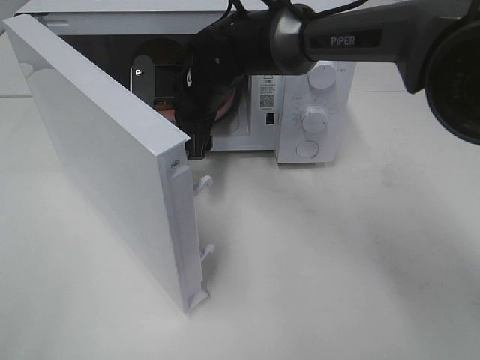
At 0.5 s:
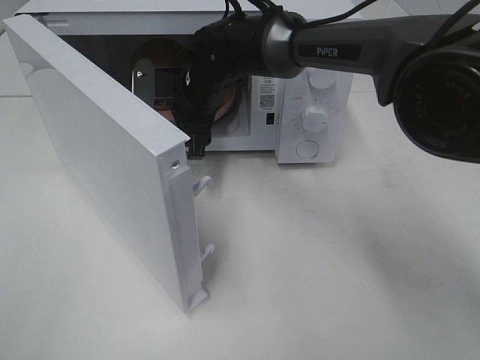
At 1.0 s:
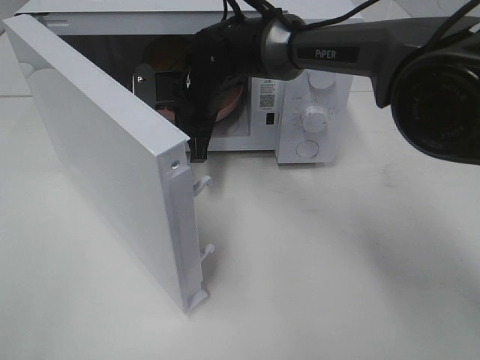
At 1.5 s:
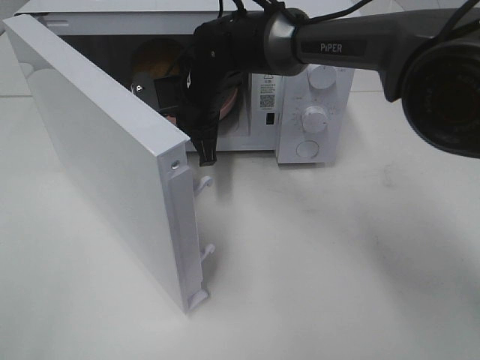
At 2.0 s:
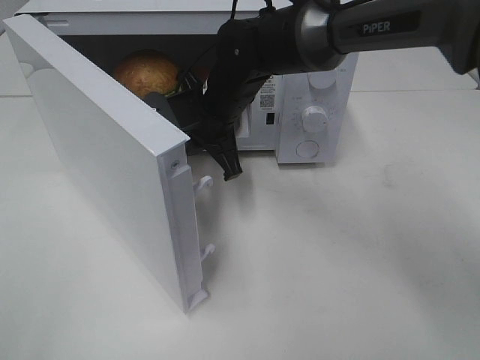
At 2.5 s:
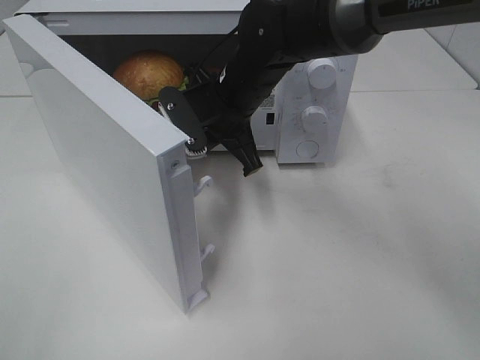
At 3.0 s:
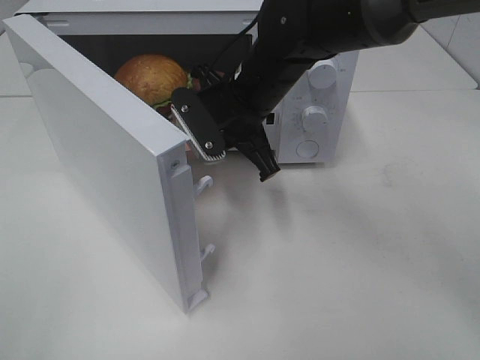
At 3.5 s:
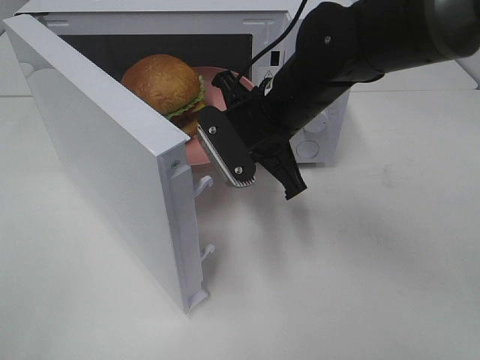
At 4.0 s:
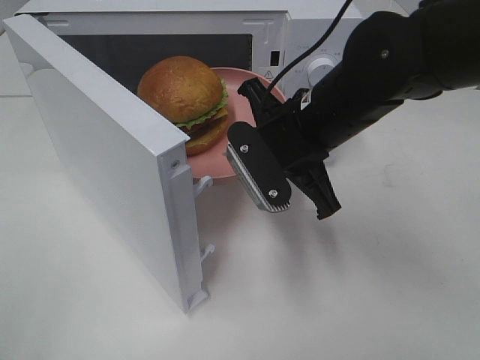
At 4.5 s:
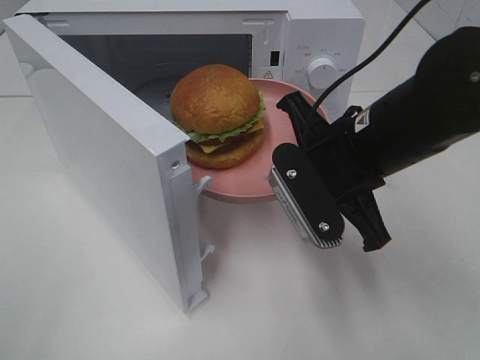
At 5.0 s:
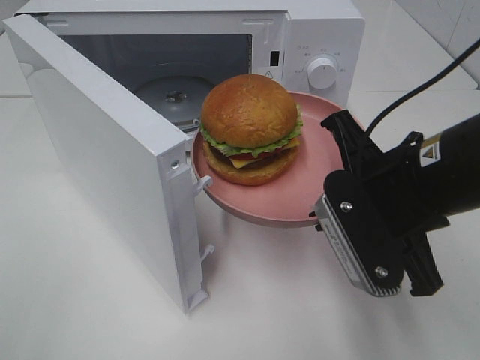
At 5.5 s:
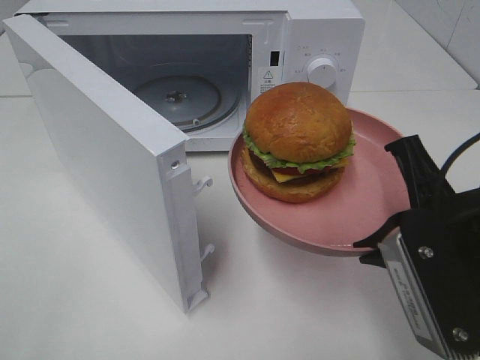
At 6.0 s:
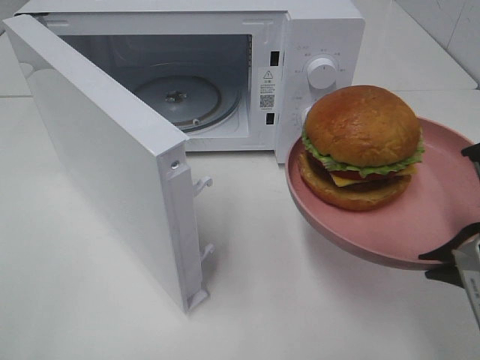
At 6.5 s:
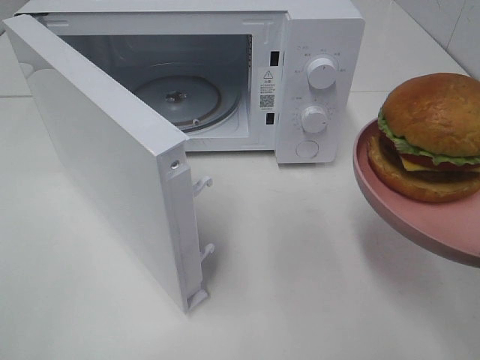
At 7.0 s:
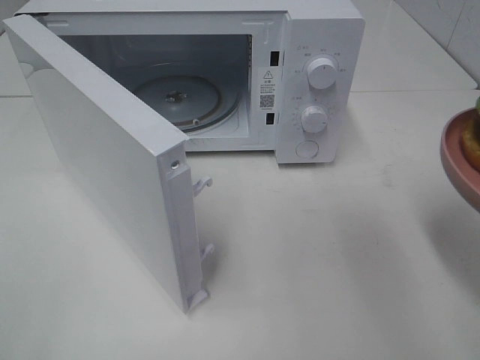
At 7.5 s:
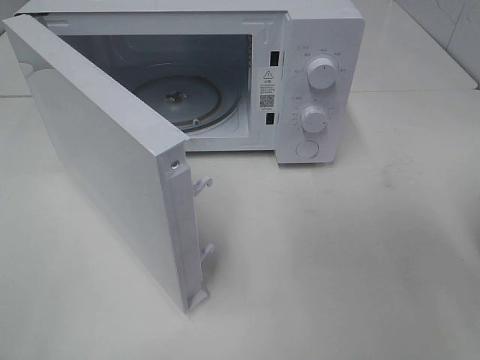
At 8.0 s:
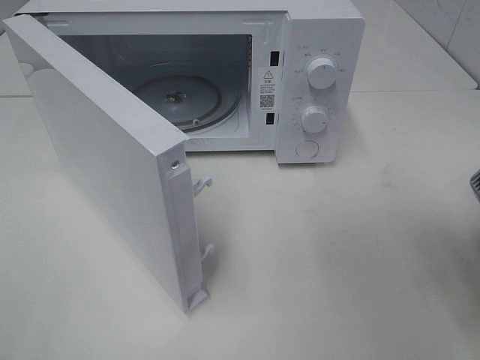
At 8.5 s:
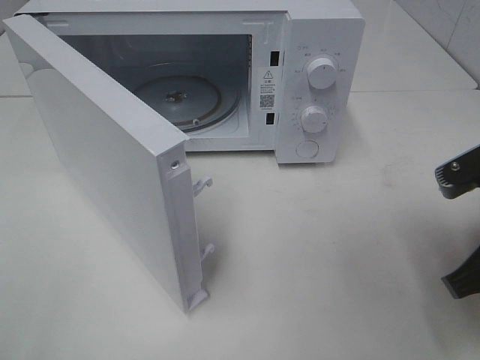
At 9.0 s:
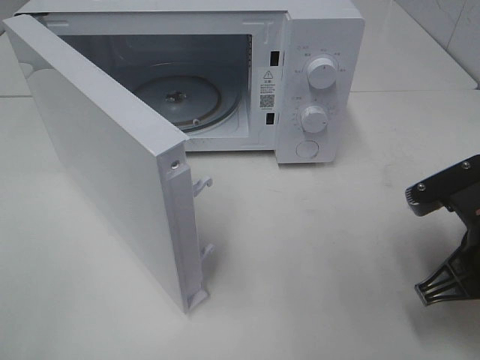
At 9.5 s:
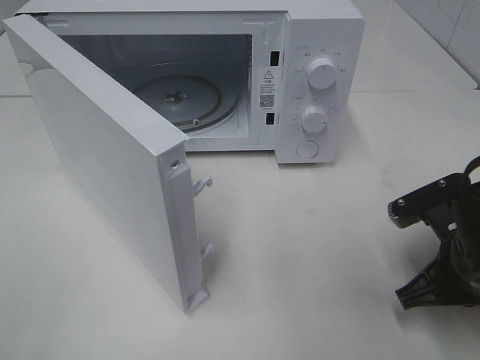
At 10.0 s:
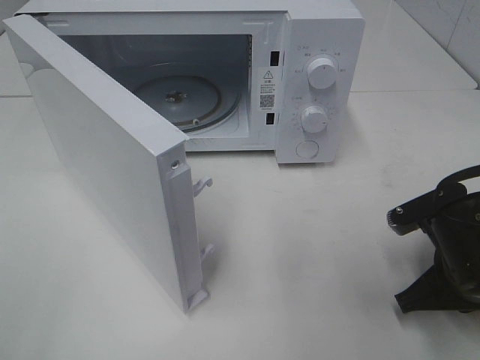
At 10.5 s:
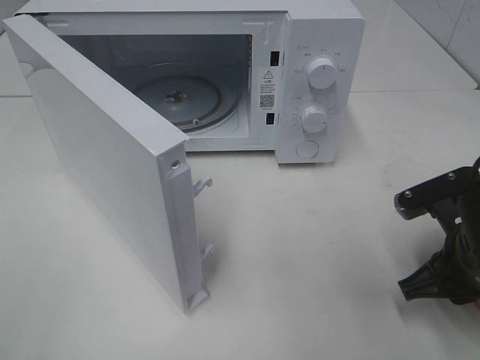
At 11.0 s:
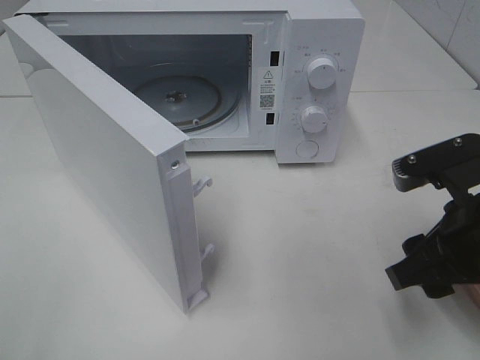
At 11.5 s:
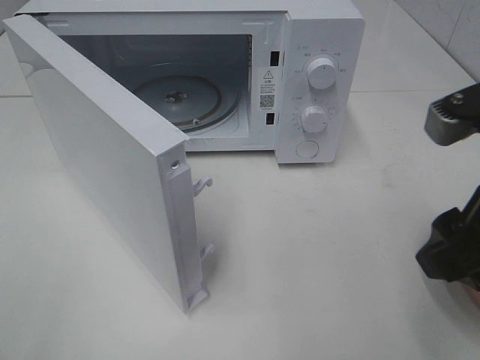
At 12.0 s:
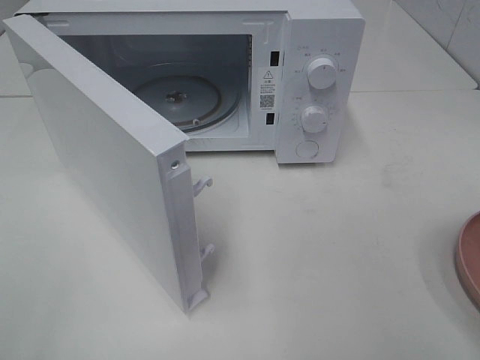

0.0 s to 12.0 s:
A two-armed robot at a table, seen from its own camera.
Task of the whole recording: Heat the burger.
Step, 1.0 to 10.0 s: Right hand: place the plate on the table.
0.0 to 2.0 s: The right gripper closes up.
2.0 to 4.0 s: The right gripper is displaced backward and to the right by about 15 cm.
4.0 to 6.0 s: The right gripper goes roughly 20 cm backward and to the right.
8.0 to 10.0 s: The right gripper travels downward and forward by some 15 cm.
10.0 to 12.0 s: The right gripper moves upward and backward, some 25 cm, and opens up.

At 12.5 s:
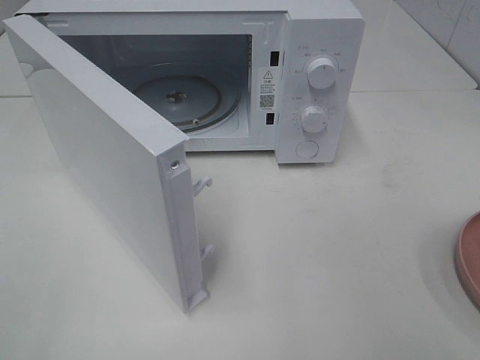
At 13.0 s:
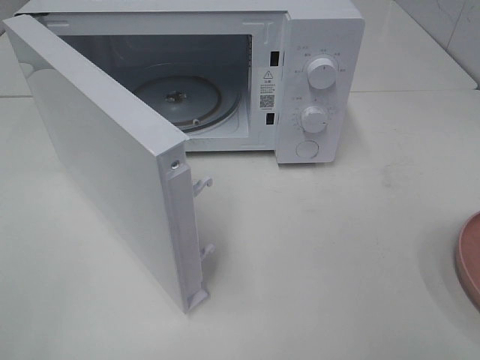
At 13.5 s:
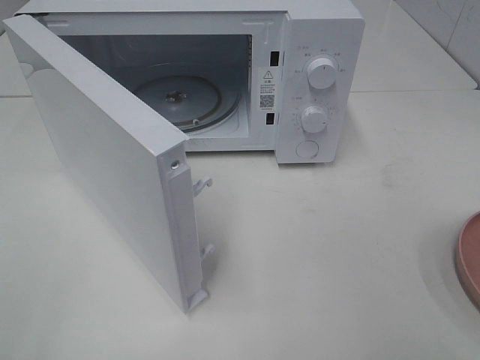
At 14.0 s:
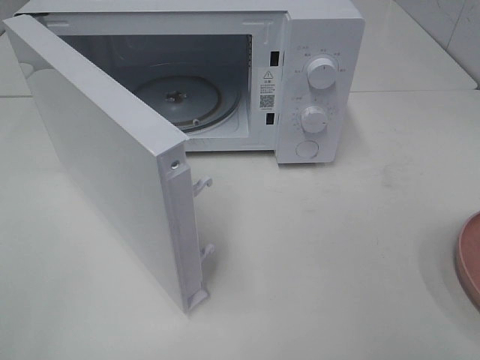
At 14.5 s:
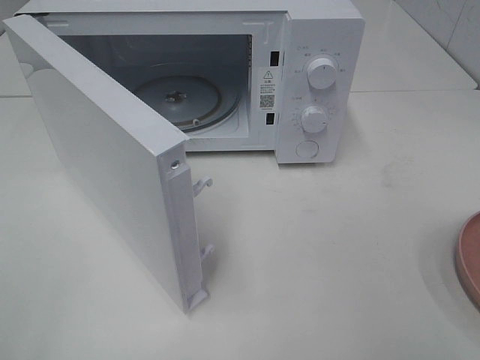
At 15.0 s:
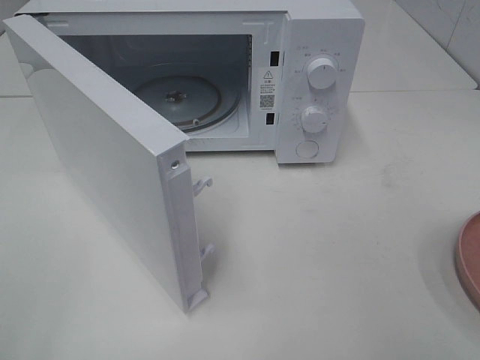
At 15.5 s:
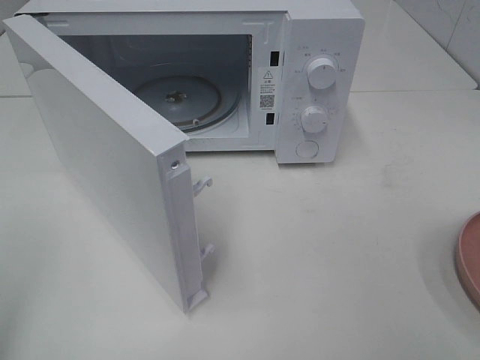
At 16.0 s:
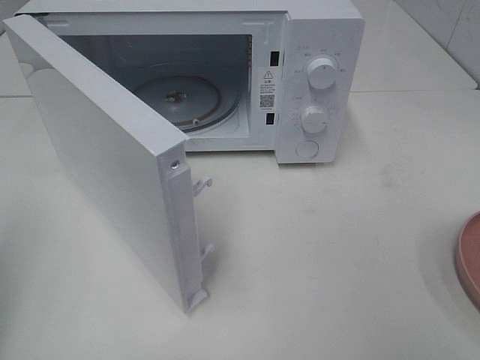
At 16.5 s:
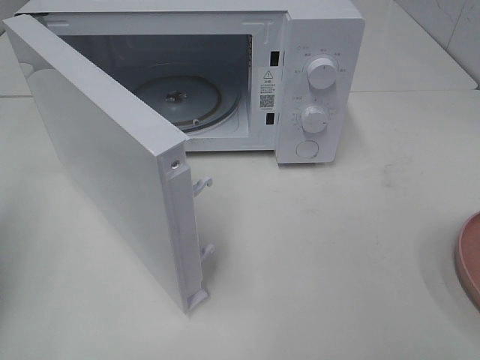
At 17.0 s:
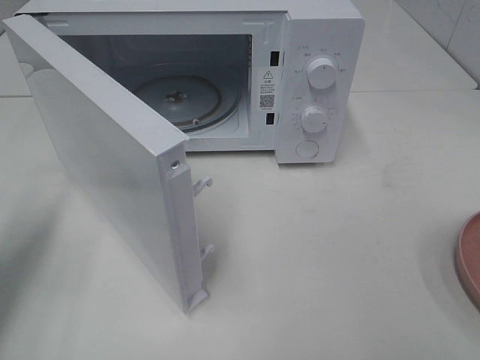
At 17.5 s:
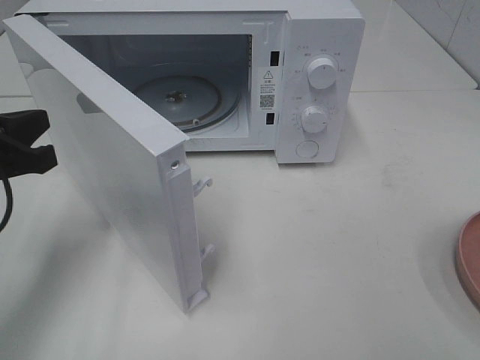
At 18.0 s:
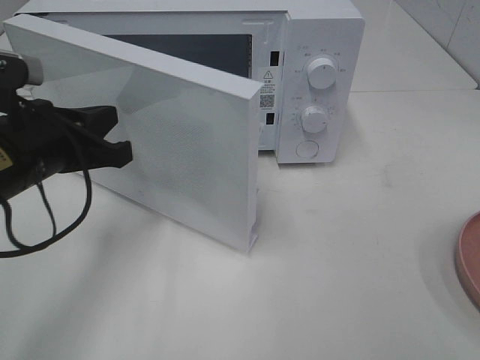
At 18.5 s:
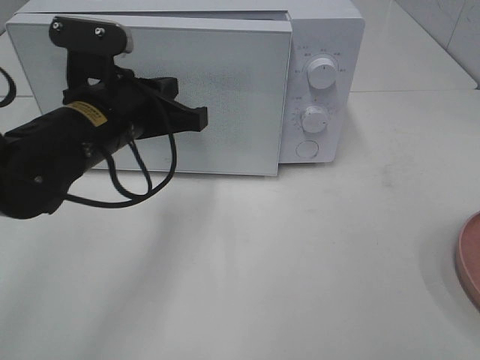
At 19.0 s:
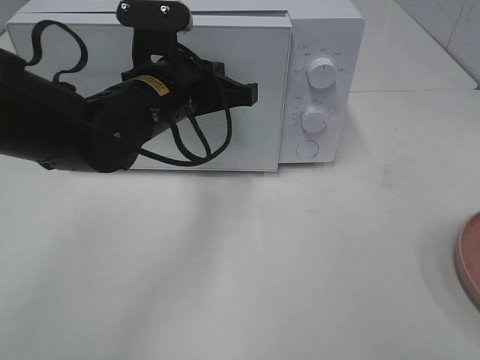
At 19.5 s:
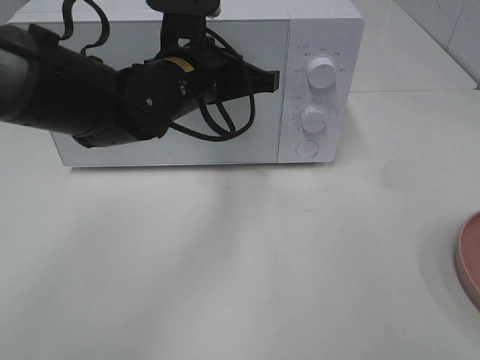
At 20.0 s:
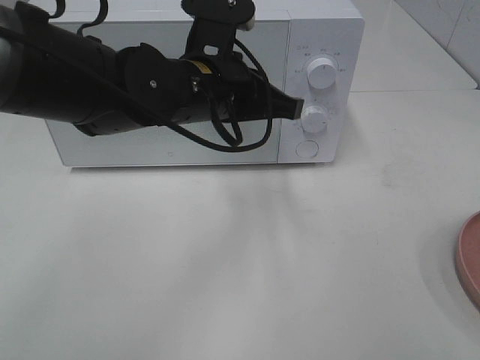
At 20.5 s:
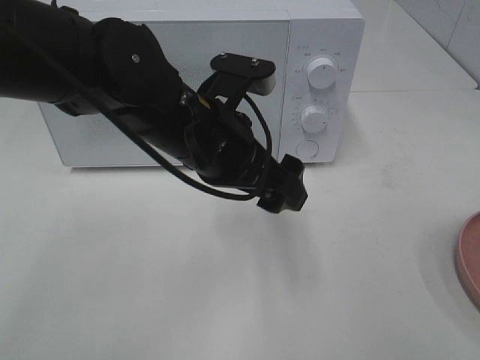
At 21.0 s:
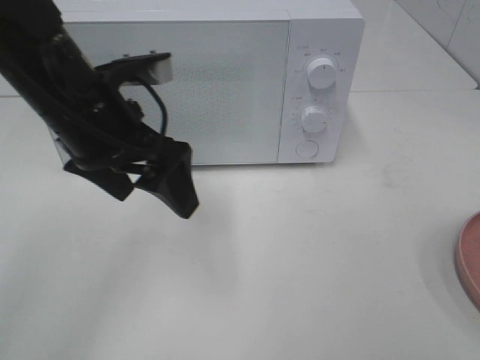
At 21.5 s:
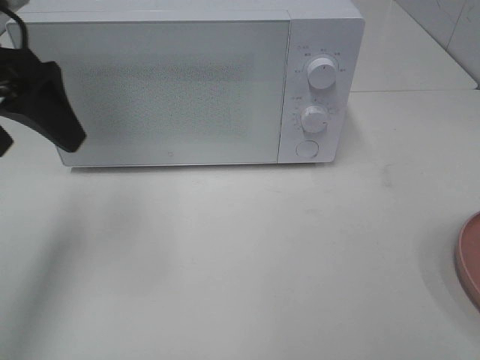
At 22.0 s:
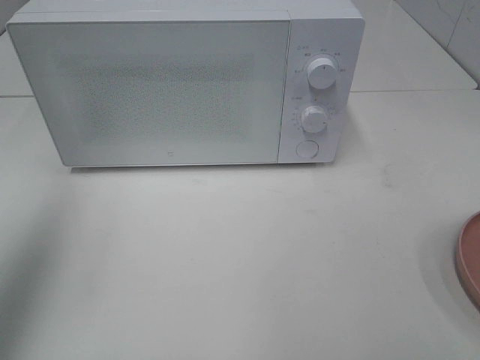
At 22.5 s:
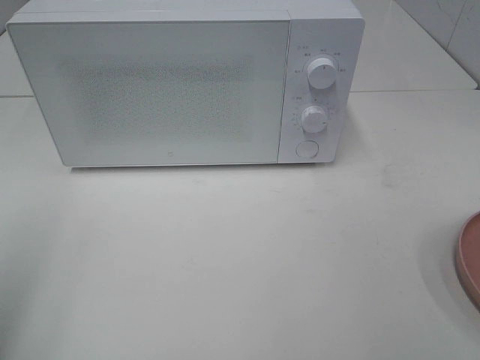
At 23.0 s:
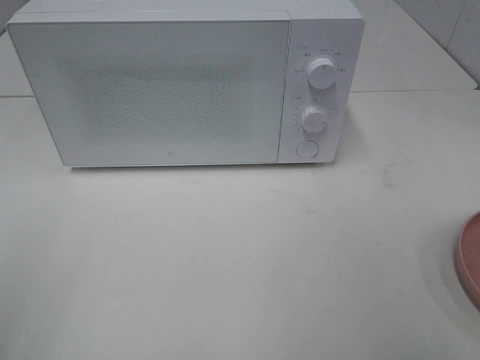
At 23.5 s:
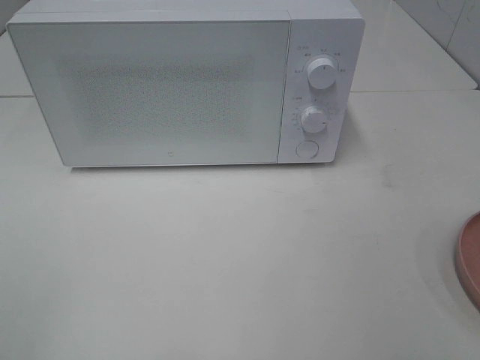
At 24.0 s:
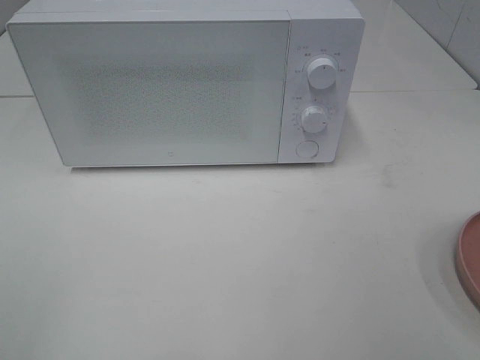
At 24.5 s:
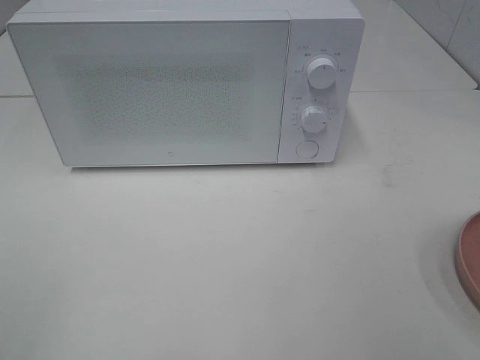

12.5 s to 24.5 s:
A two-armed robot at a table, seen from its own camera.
Task of the whole recording: Heat the burger.
Step, 12.5 to 19.5 s: Left hand: close the microwave door.
14.5 to 16.5 s: The left gripper is displaced forward by roughly 20 cm, and closes up.
16.5 to 18.5 s: The left gripper moves to the right and forward, about 25 cm.
18.5 to 20.5 s: The left gripper shifts roughly 10 cm to the right, and opens.
20.5 to 22.5 s: The left gripper heads to the left and backward, covering approximately 35 cm.

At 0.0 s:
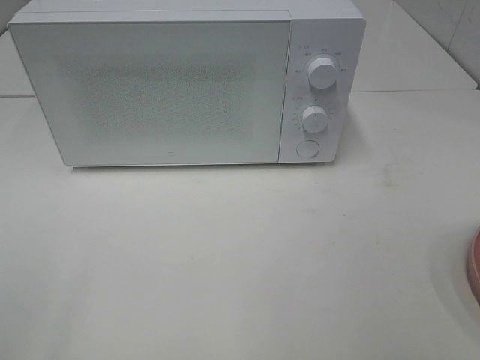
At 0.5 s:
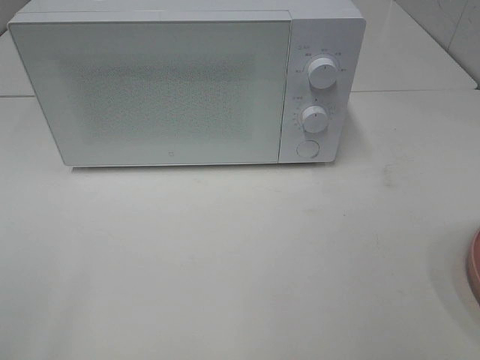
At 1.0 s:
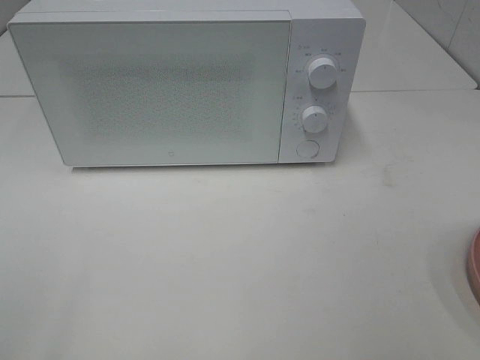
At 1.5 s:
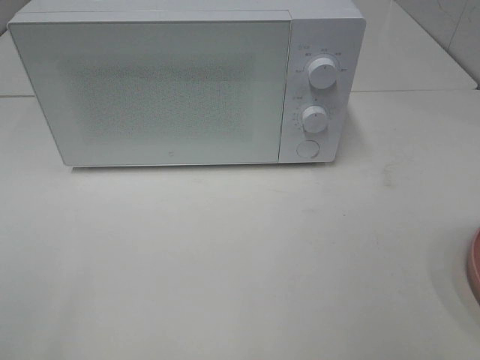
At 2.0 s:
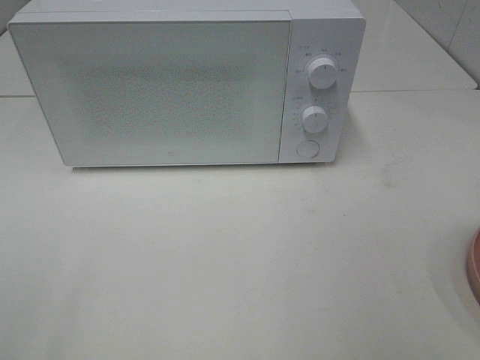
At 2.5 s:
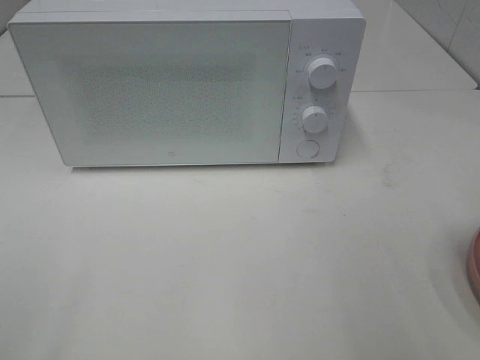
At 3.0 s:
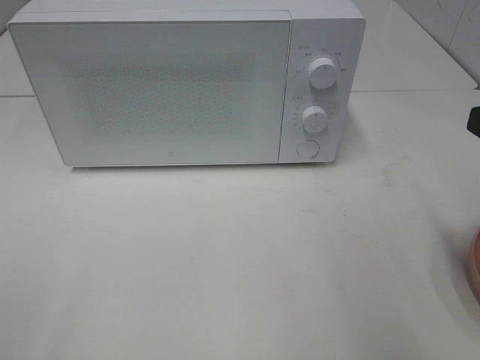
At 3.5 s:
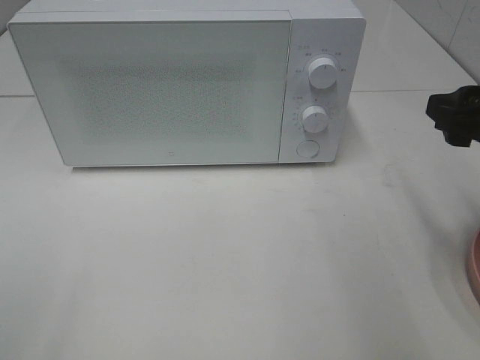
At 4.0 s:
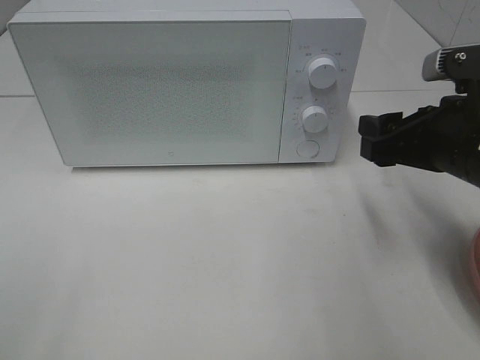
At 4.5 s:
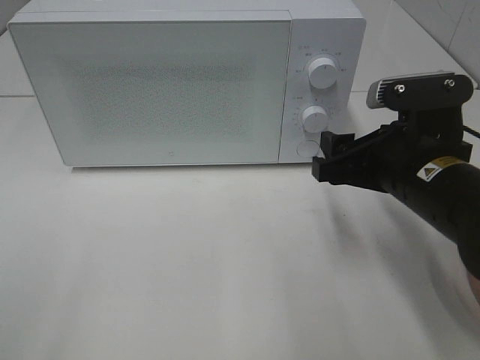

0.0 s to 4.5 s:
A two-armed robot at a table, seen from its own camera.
Task of the whole recording: Heat the burger.
2.0 to 4.5 s: The right gripper moves forward, downward and to the left, roughly 25 cm.
